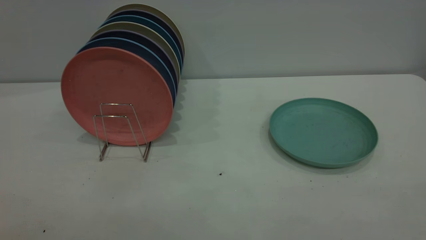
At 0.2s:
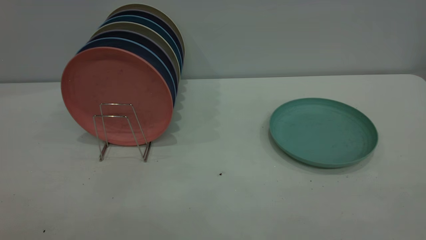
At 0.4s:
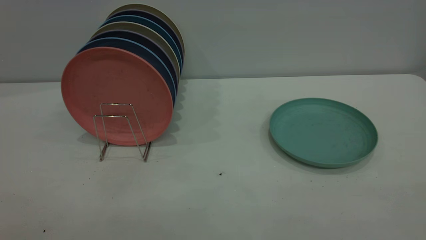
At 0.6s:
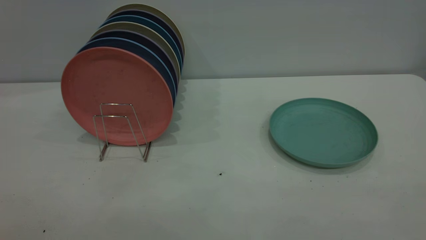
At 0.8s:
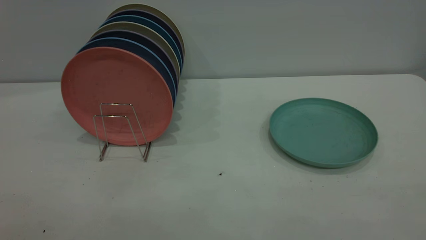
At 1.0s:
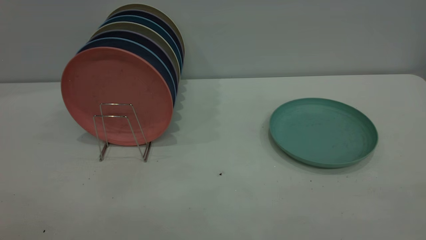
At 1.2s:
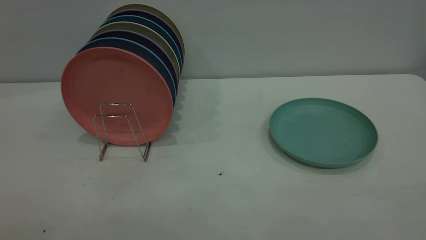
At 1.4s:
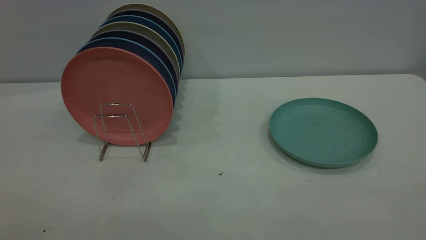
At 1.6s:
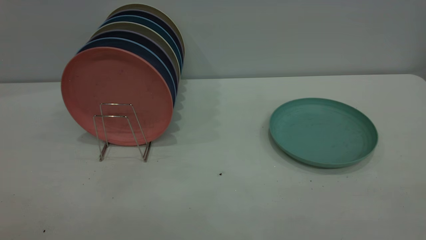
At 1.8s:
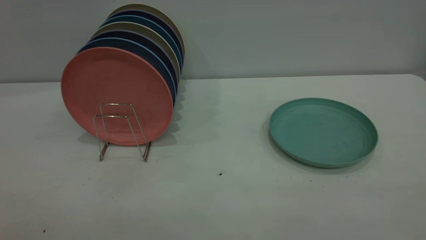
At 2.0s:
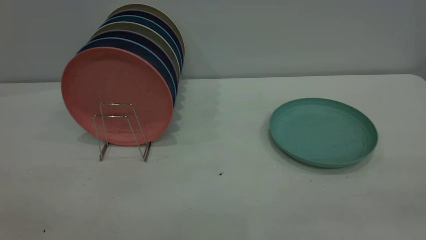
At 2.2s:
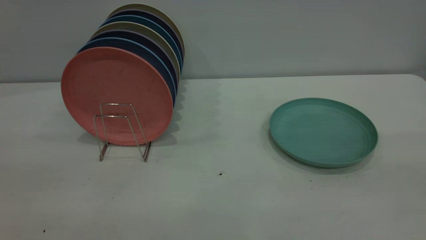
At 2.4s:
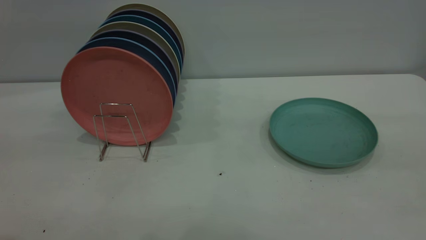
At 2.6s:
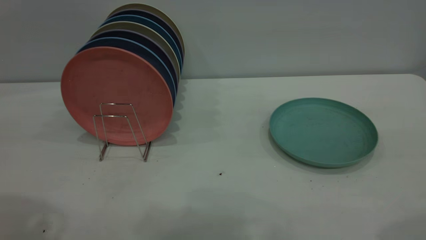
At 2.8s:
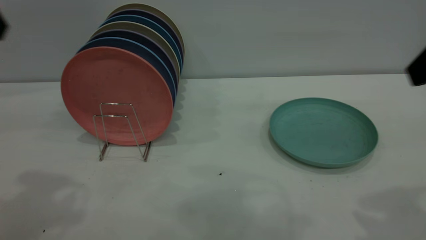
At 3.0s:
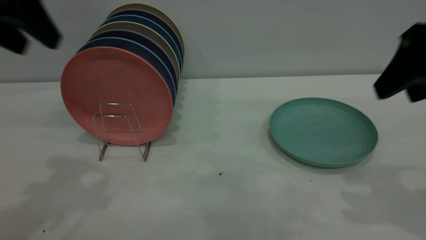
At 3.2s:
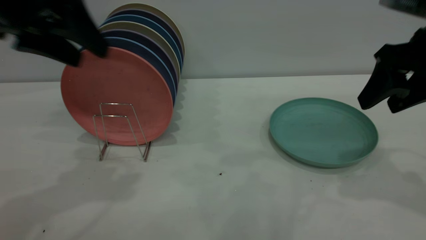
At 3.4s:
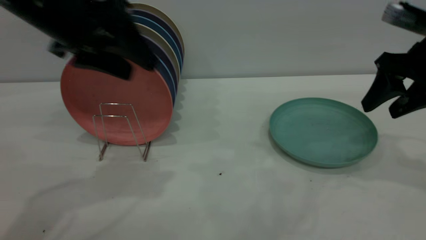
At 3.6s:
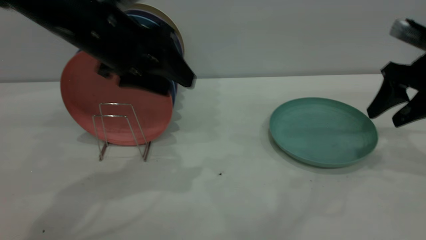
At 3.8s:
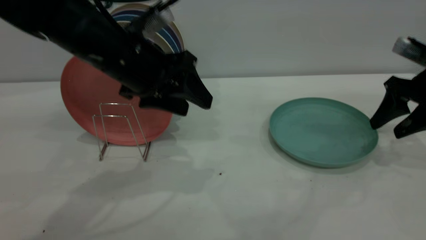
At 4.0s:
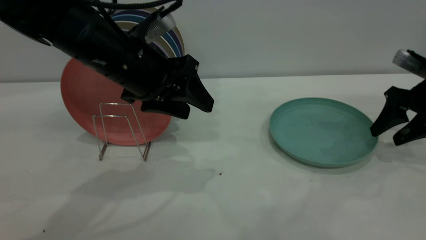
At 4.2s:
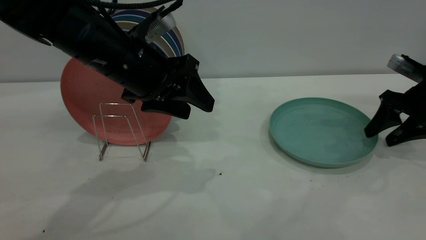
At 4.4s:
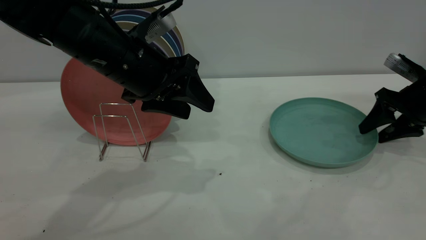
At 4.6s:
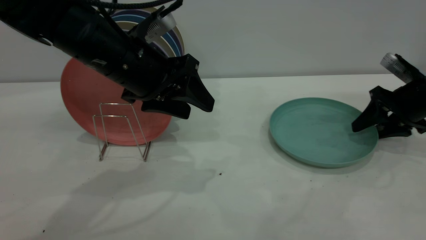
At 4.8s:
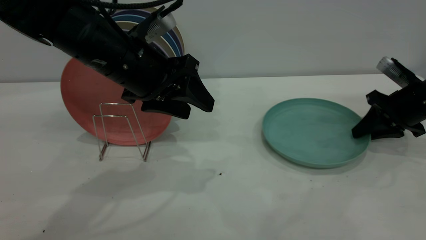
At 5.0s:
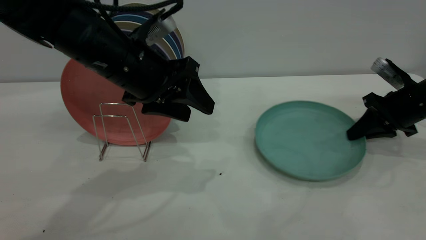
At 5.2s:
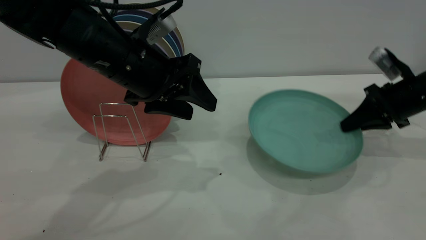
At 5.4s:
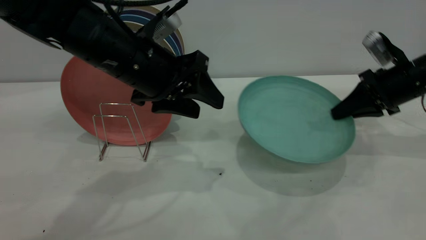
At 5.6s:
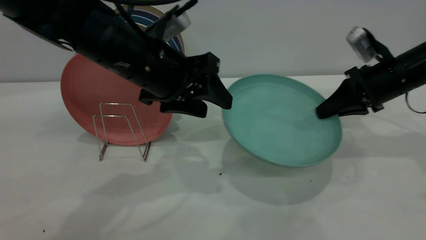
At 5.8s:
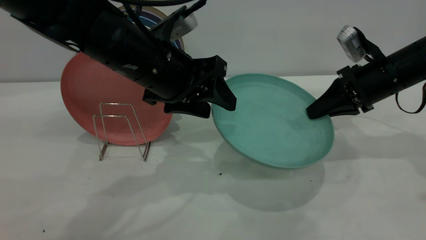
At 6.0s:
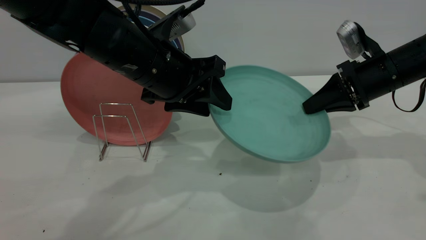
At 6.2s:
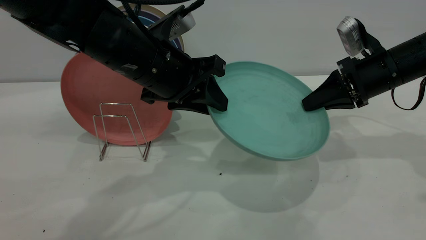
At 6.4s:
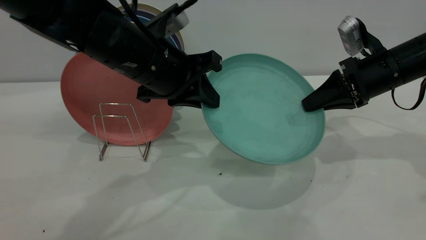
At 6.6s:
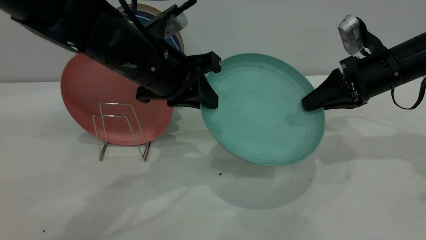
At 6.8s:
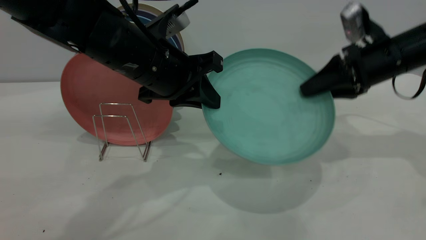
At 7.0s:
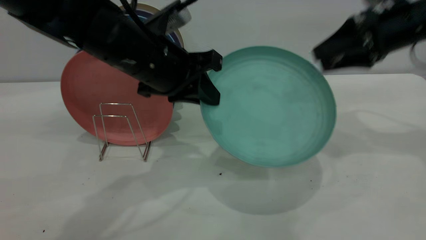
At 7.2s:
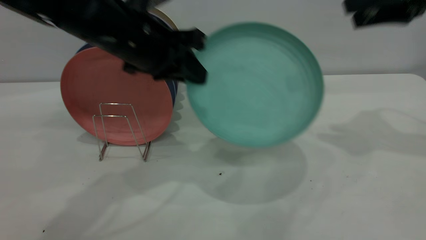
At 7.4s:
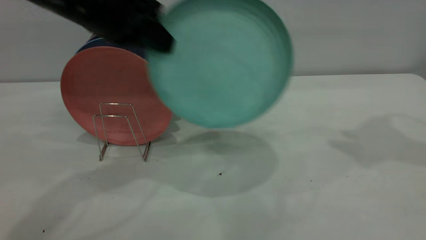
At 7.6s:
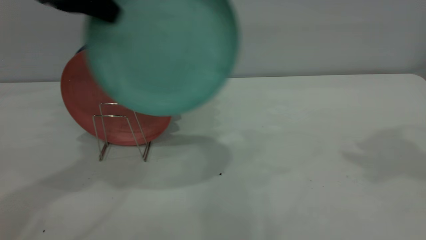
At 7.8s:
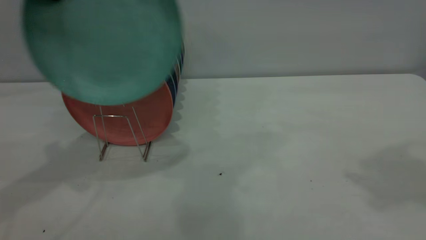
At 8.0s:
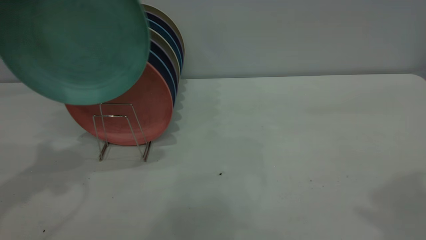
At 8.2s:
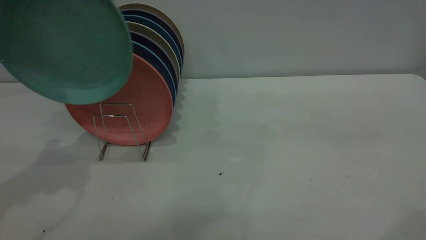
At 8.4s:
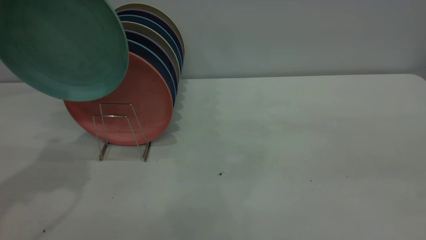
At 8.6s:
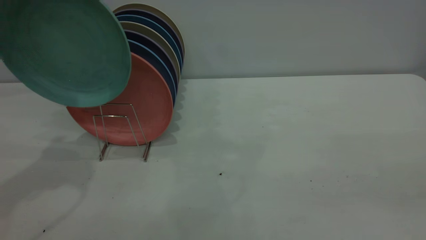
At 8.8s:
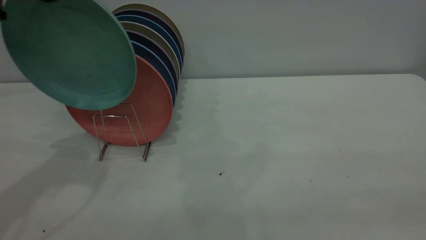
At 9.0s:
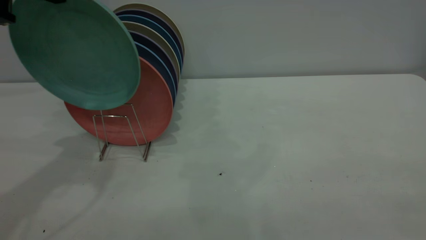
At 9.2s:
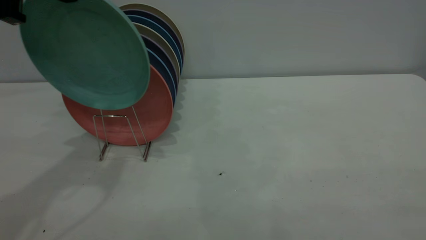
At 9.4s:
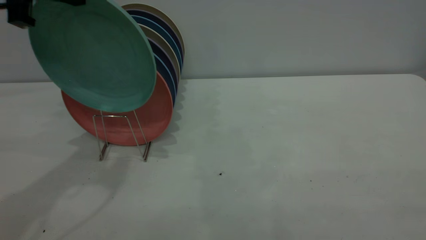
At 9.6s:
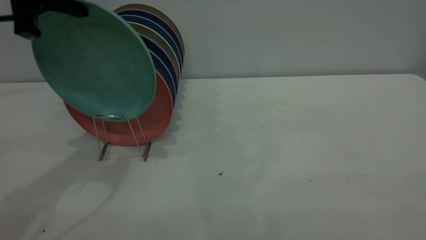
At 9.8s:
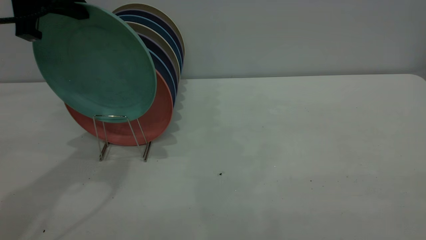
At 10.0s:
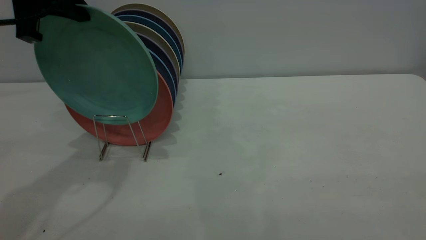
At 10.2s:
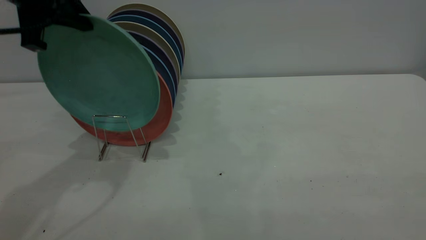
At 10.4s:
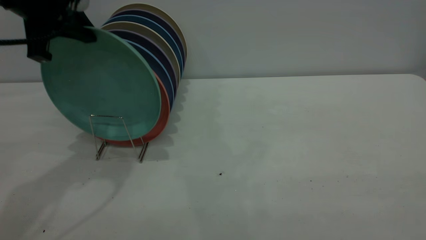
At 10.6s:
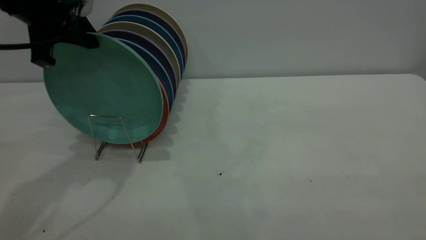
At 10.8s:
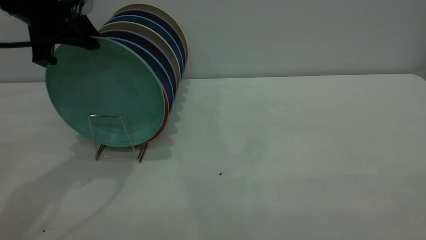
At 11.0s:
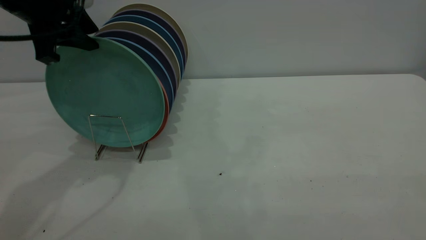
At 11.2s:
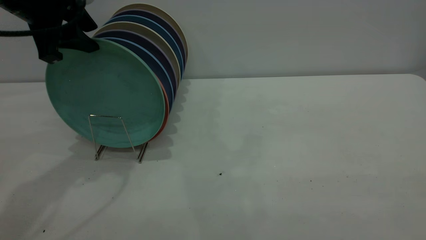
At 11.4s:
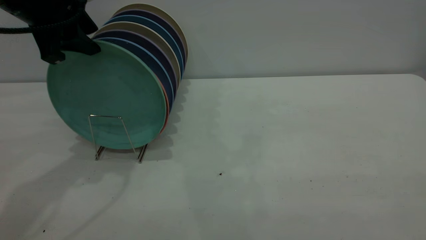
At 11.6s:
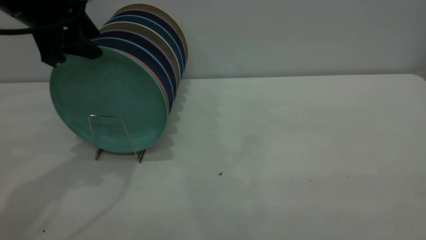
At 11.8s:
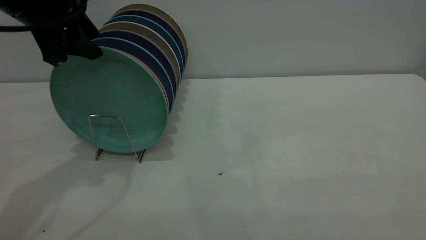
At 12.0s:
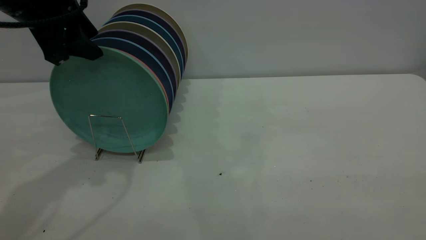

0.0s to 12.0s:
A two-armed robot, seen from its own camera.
Task of the whole recording: the right gripper grasp the green plate, the right gripper pass the green plate to the left gripper, and the left gripper place the green plate on the plate rack.
Step, 0.0s to 5.2s: Pick up the plate with the right gripper.
Step, 5.4s to 6.8s: Pass the plate from the right gripper to the left gripper.
0.0s to 1.6s: Both grippers stay put.
1.6s to 3.0s: Both grippers move forward, some 30 cm.
3.0s to 4.4s: The right gripper goes approximately 25 cm downward, forward and to the right. The left gripper shifts about 20 cm downward and to the right.
4.4s to 6.0s: The right gripper is displaced to the left by some 10 cm, and closes up.
6.0s to 7.6s: The left gripper goes about 20 cm to the left and upward, and closes its fingers, while the right gripper is displaced upward by some 30 cm, and opens.
7.6s to 9.0s: The right gripper goes roughly 35 cm backward.
9.0s to 10.4s: The left gripper heads downward, covering roughly 5 cm.
10.4s to 12.0s: The left gripper opens up.

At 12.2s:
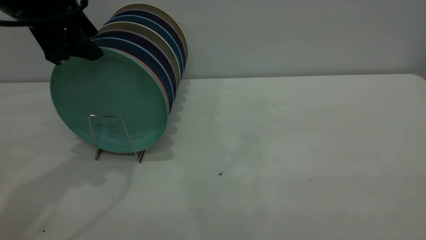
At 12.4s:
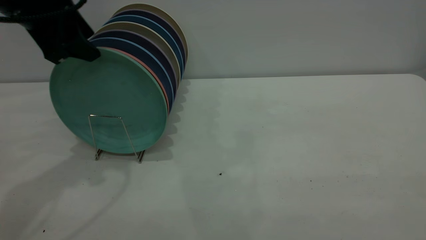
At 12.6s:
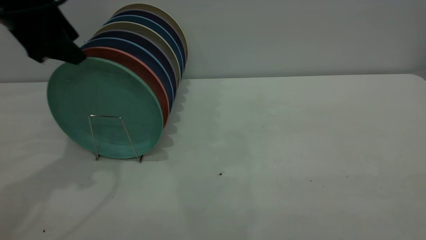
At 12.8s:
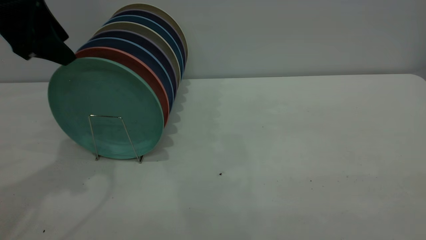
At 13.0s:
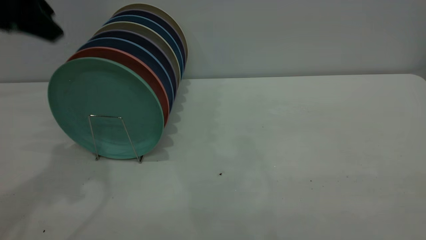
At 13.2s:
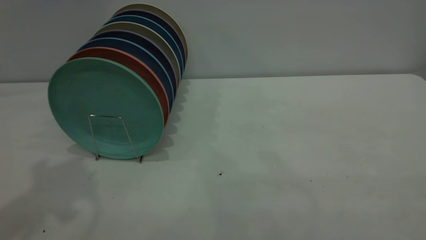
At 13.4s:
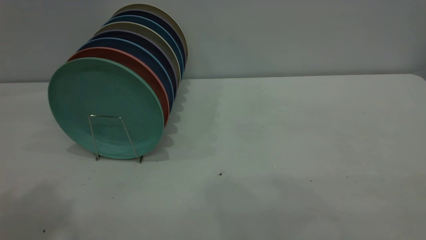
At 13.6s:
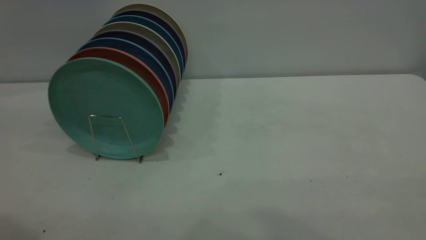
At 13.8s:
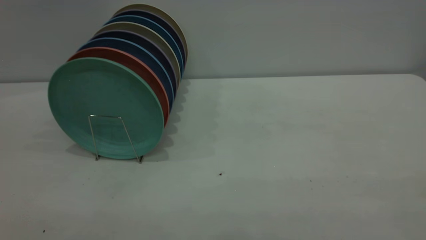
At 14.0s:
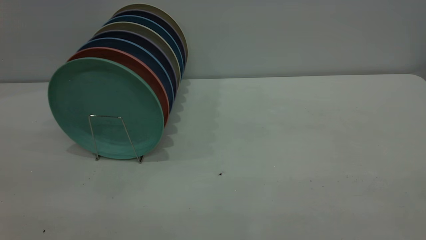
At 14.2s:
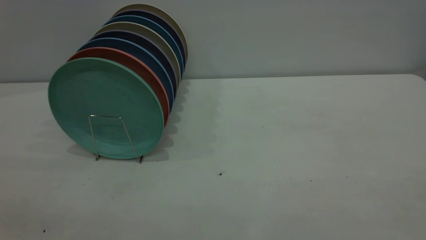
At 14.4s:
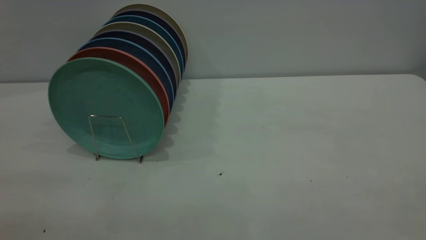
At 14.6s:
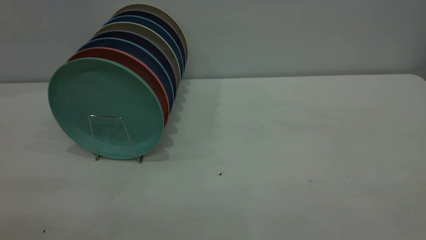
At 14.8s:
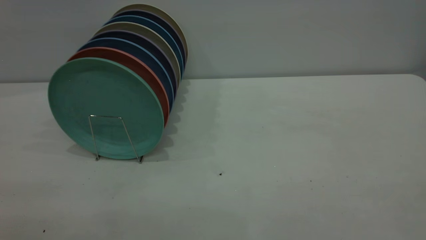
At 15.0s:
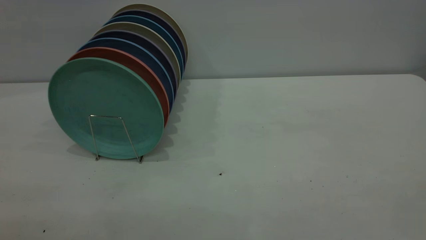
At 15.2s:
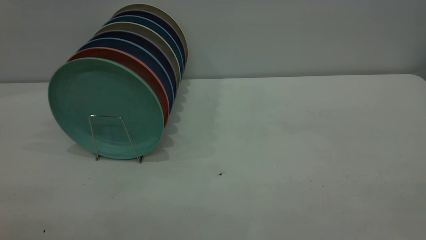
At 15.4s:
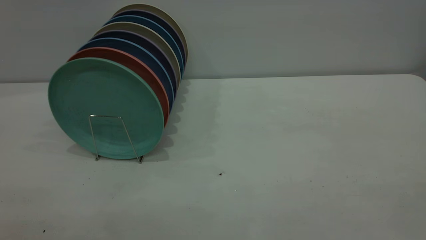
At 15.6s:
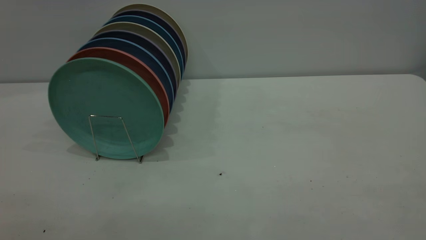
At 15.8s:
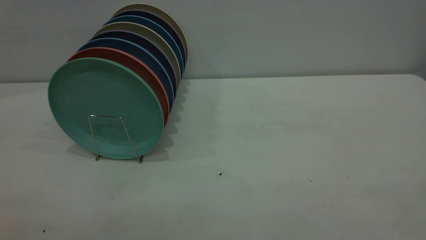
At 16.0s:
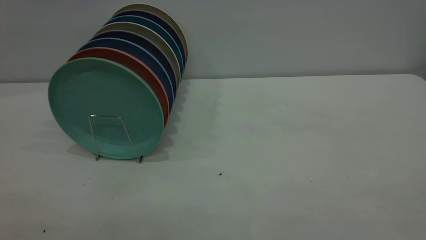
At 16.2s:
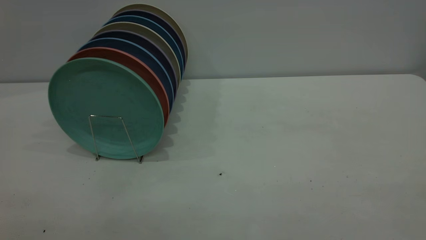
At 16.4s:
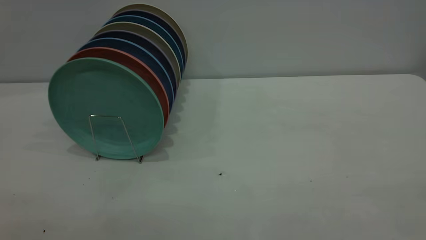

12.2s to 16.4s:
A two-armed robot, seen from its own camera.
Task of the whole recording: the right gripper grasp the green plate, the right gripper pass the green plate to the left gripper, and the left gripper place the green plate on the plate rack.
12.2s to 13.6s: The left gripper shifts approximately 25 cm backward and upward.
